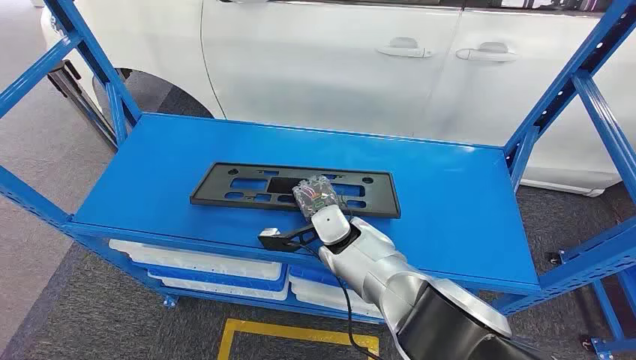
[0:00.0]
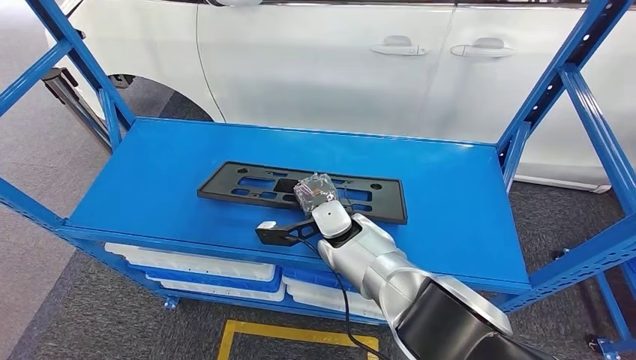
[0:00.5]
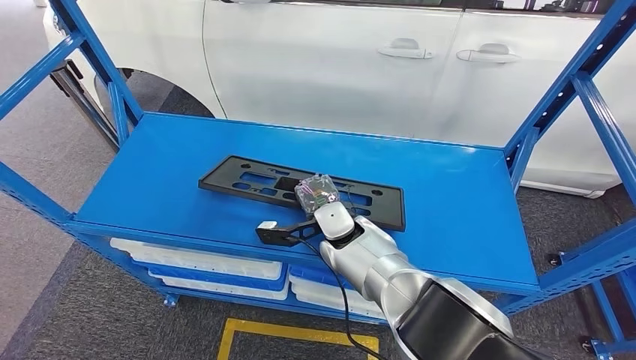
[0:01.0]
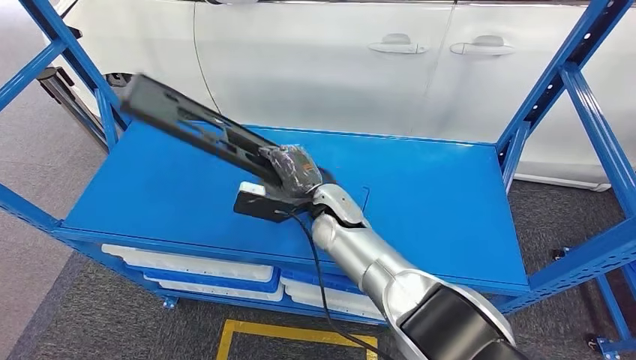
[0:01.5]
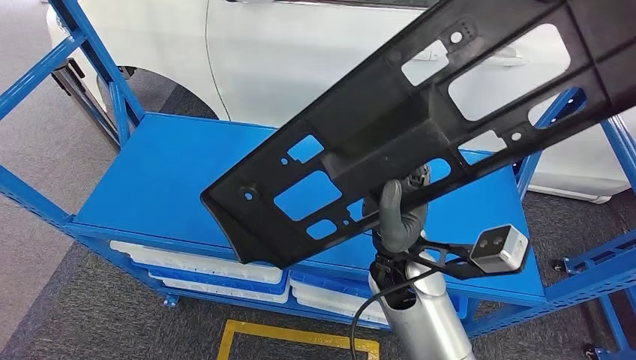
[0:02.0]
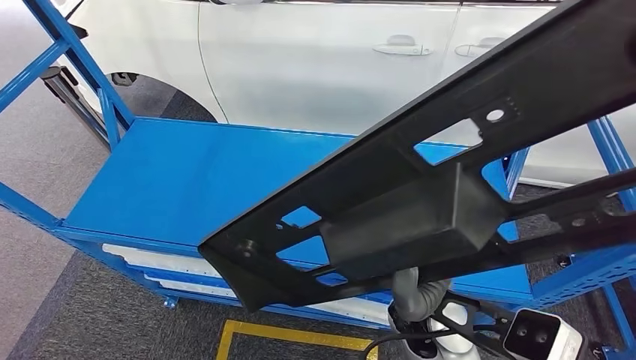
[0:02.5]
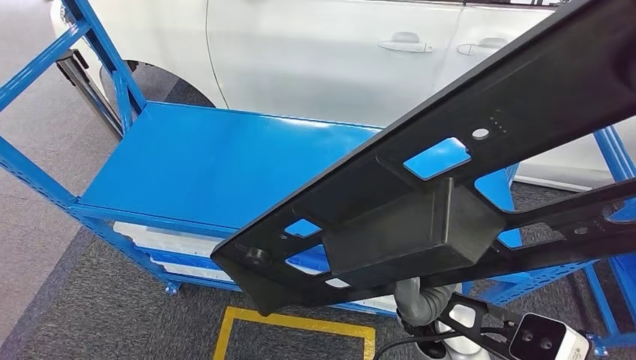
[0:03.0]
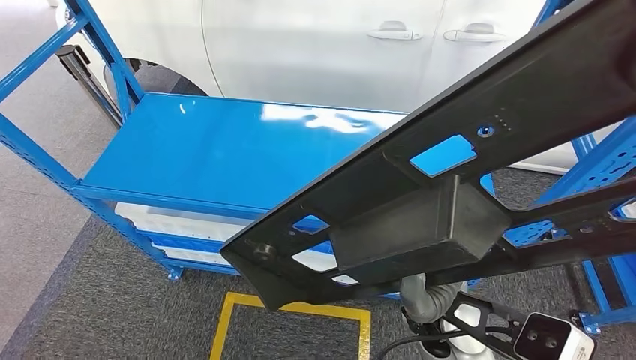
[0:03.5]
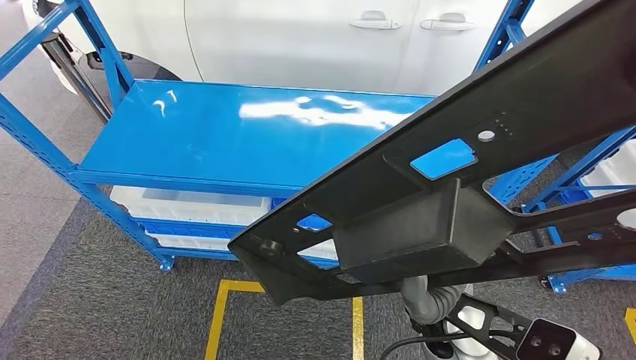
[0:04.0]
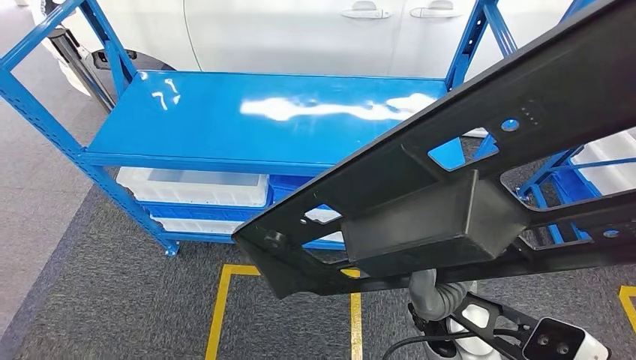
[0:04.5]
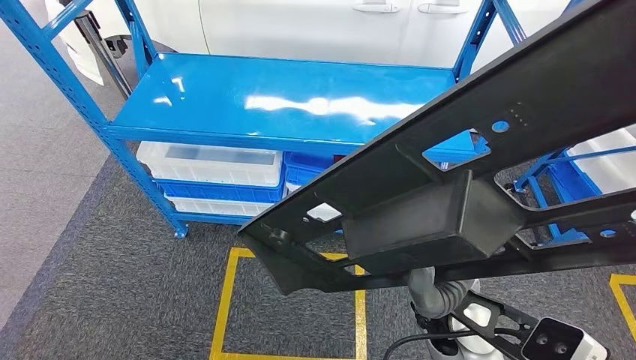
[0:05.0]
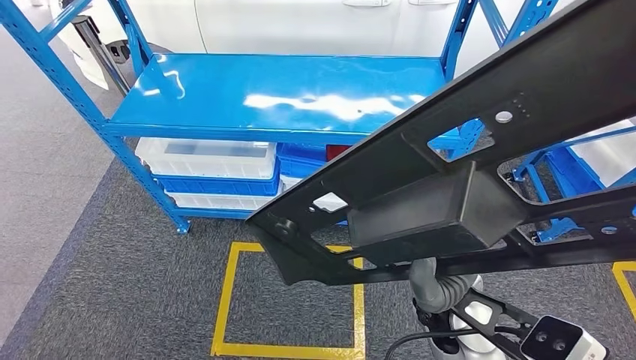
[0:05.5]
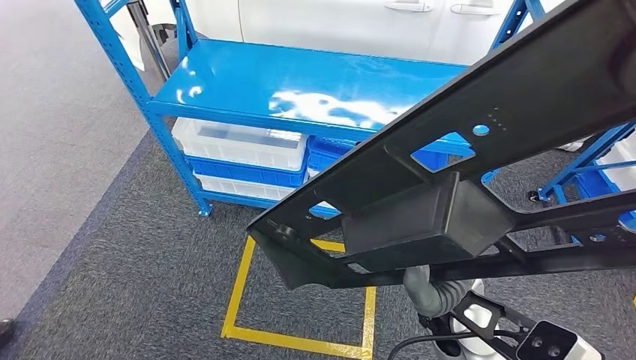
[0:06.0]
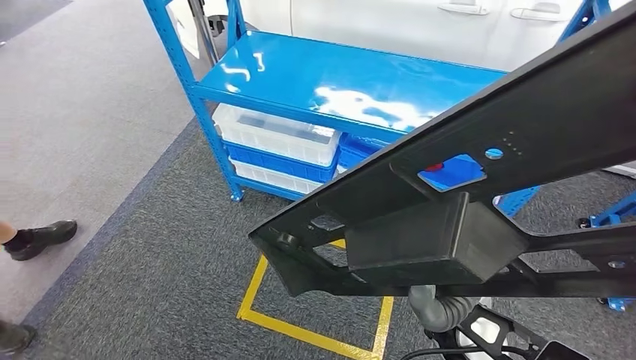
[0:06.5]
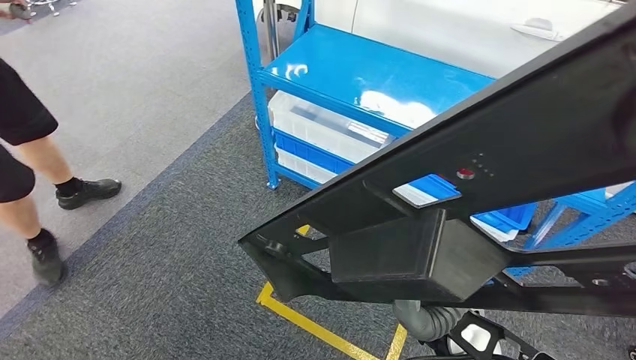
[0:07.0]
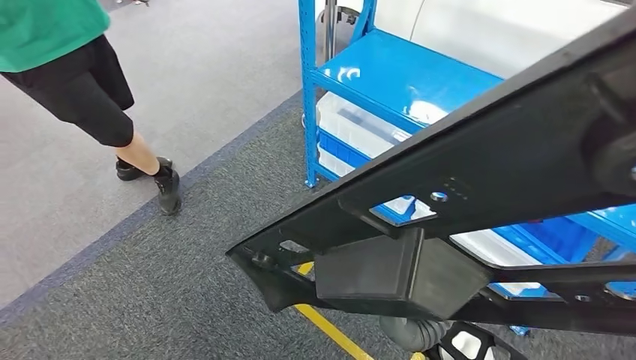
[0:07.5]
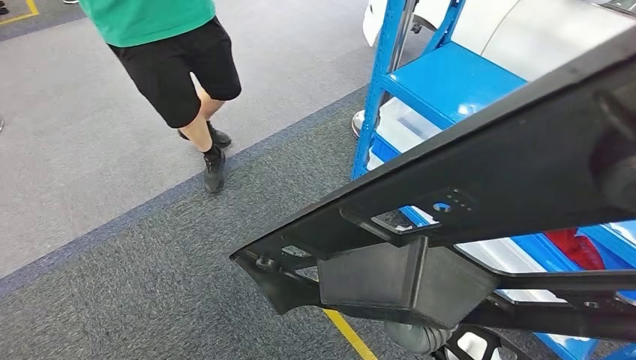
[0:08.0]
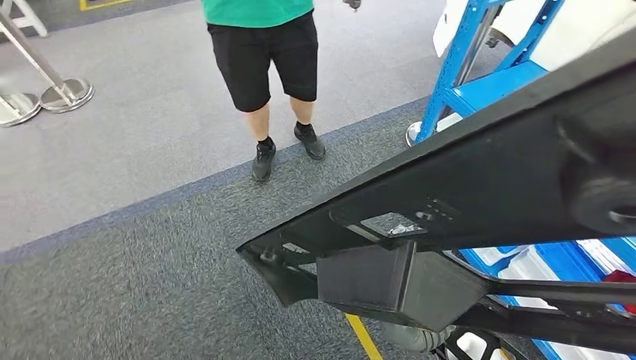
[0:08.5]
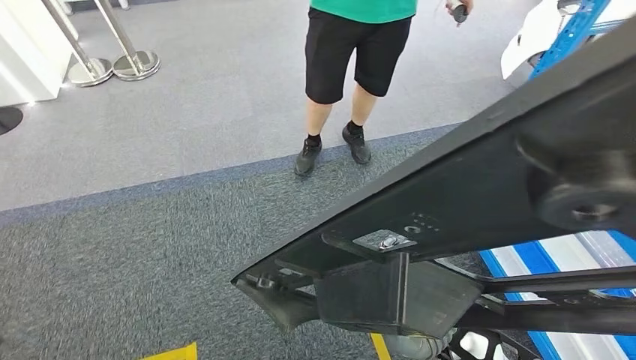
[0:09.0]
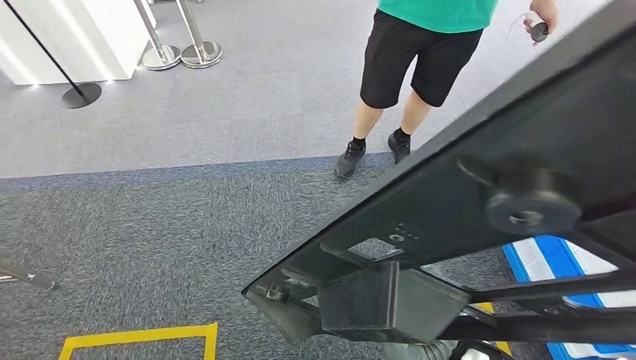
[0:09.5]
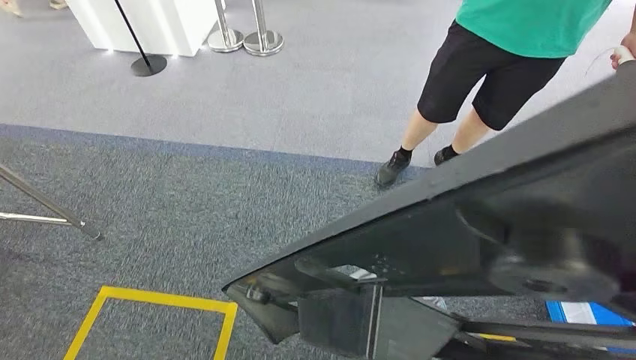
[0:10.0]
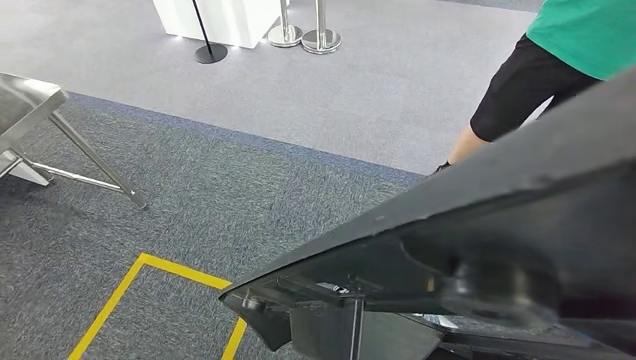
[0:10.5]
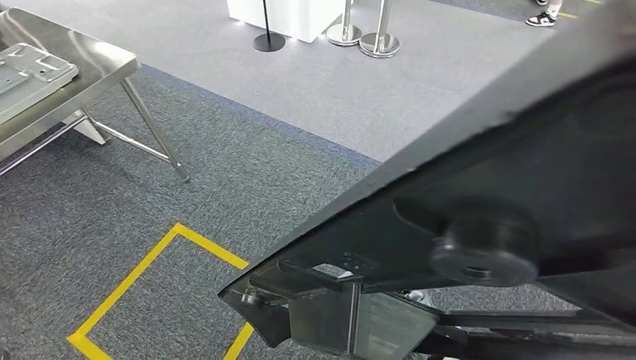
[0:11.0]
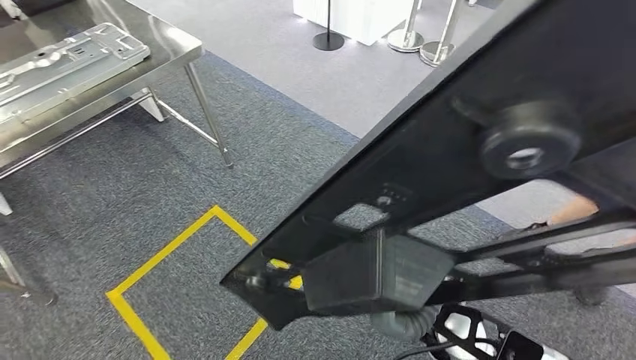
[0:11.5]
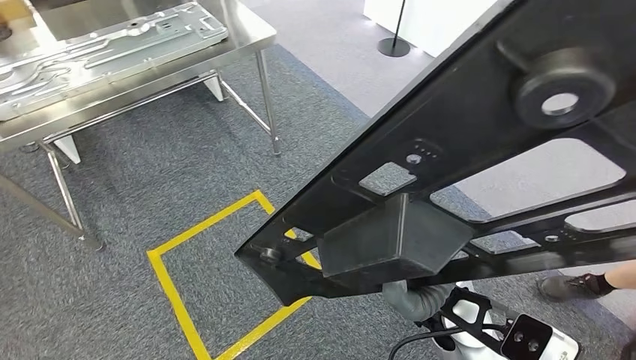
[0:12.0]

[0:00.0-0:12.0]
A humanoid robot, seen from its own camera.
Step, 0:00.0 to 0:02.5: Pick up the large material from the shelf.

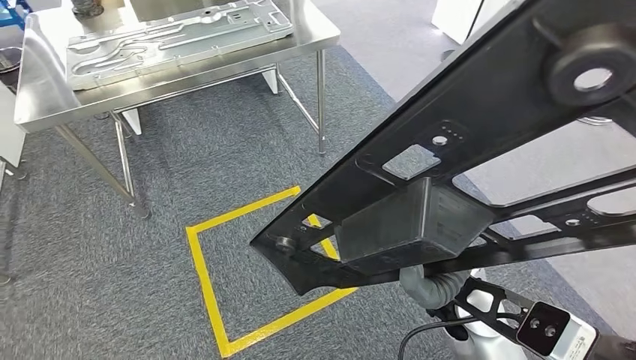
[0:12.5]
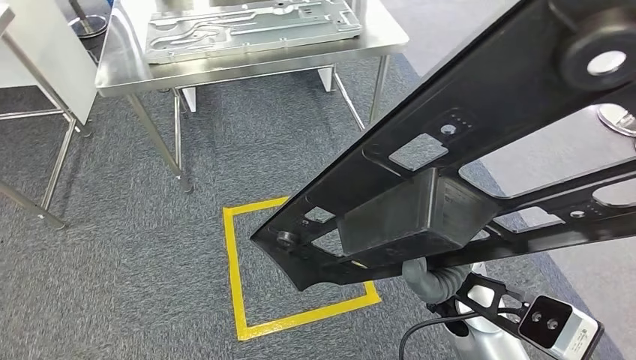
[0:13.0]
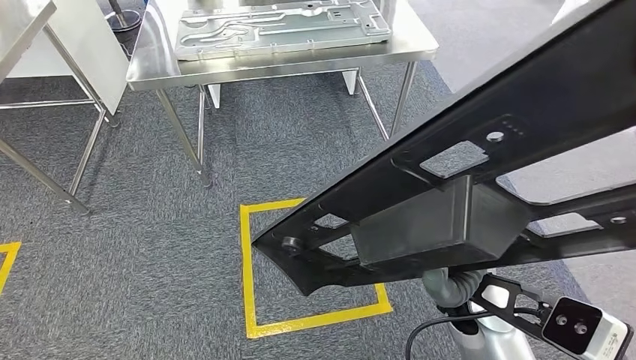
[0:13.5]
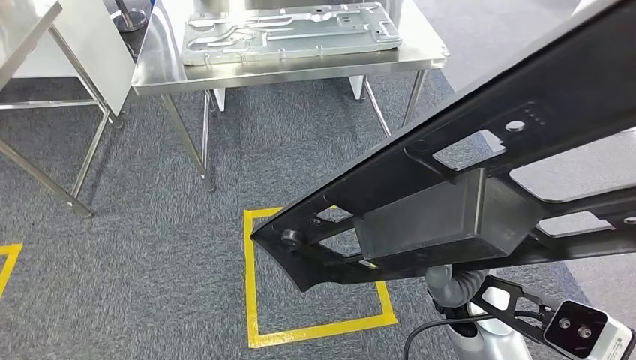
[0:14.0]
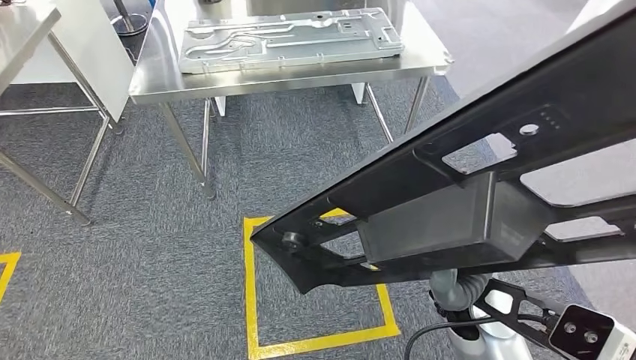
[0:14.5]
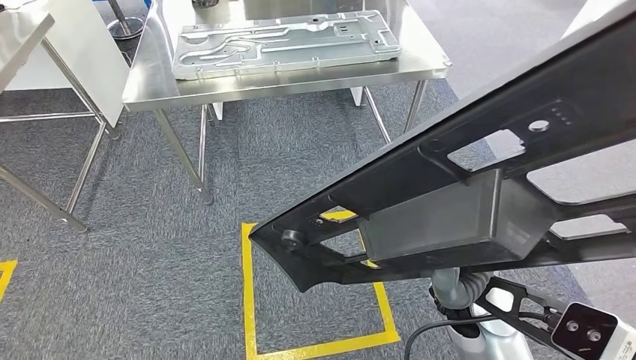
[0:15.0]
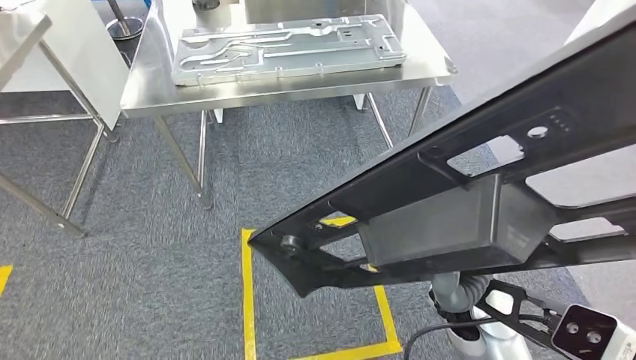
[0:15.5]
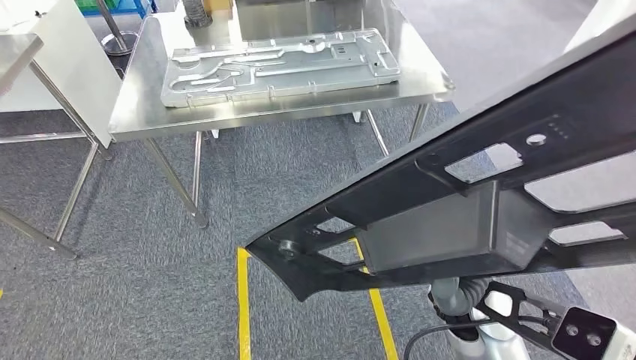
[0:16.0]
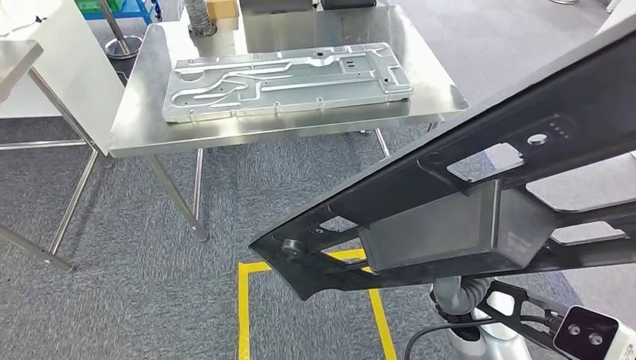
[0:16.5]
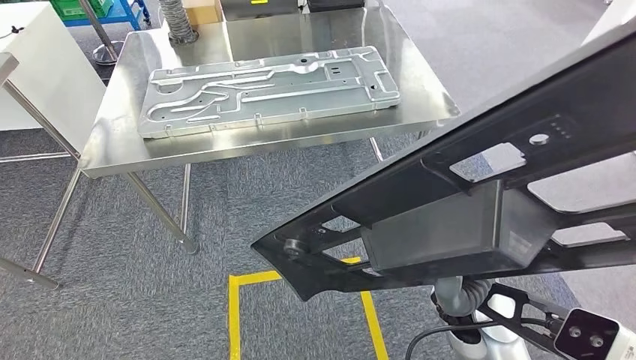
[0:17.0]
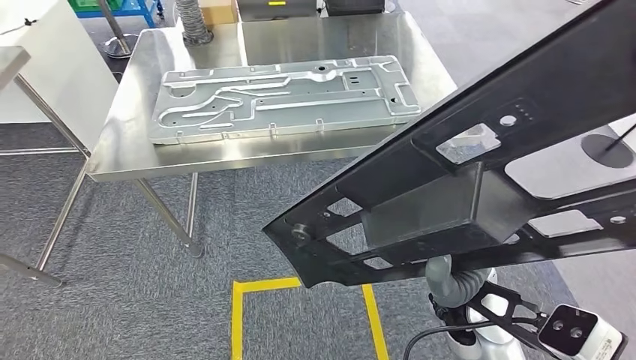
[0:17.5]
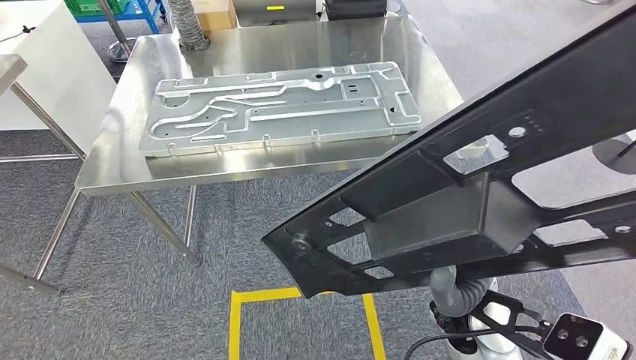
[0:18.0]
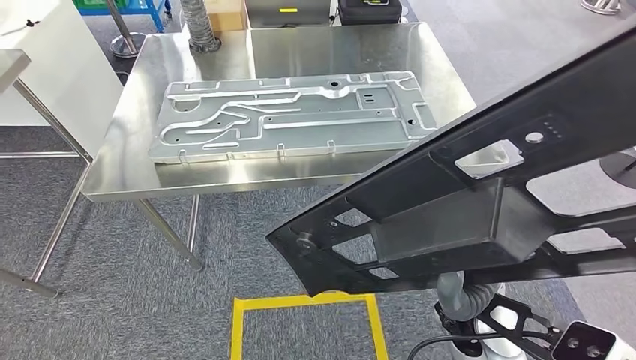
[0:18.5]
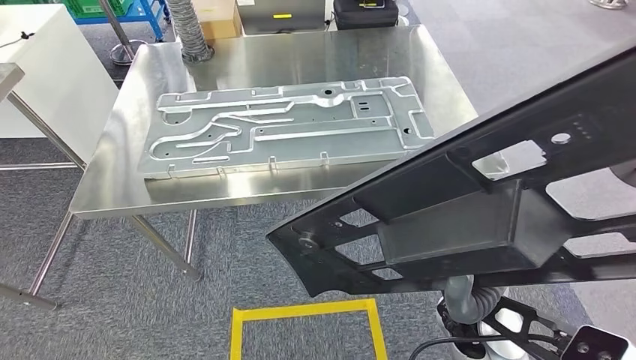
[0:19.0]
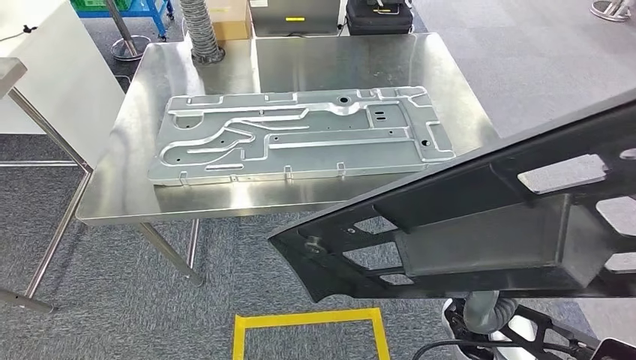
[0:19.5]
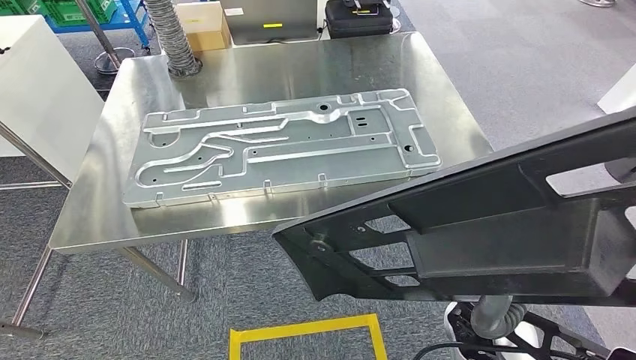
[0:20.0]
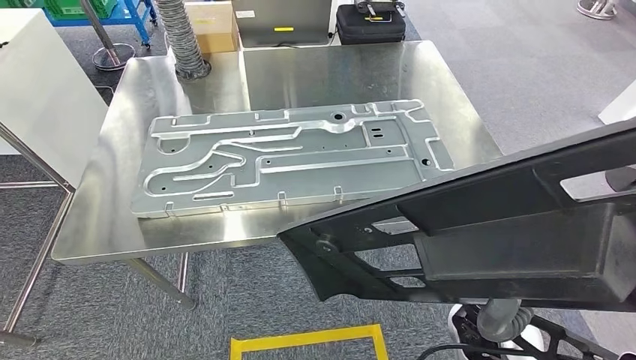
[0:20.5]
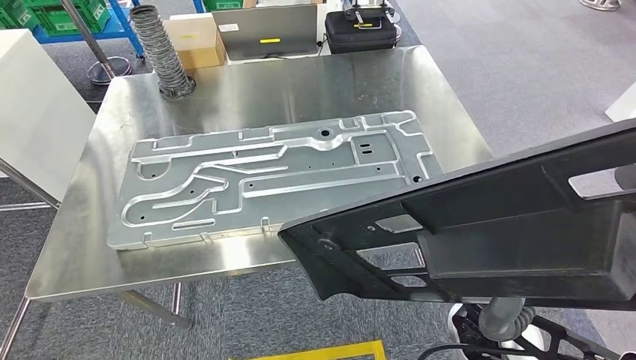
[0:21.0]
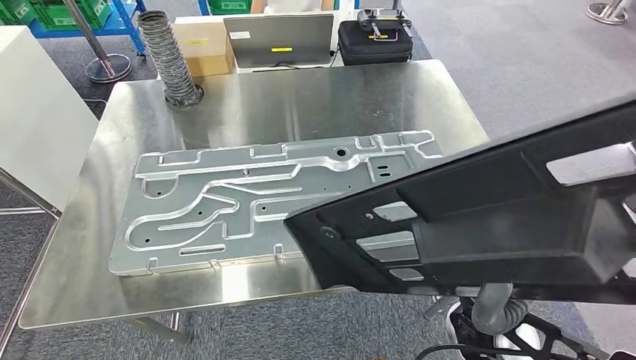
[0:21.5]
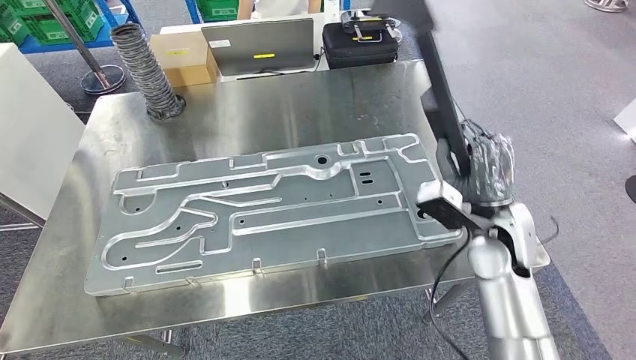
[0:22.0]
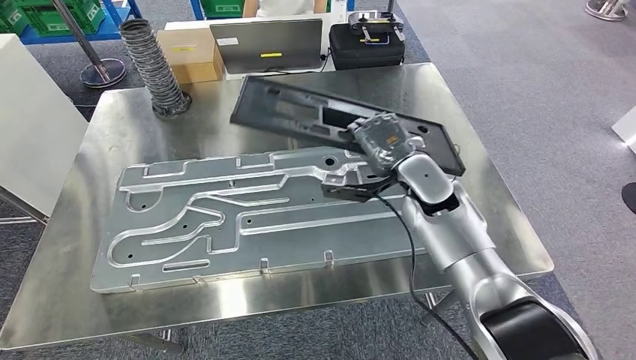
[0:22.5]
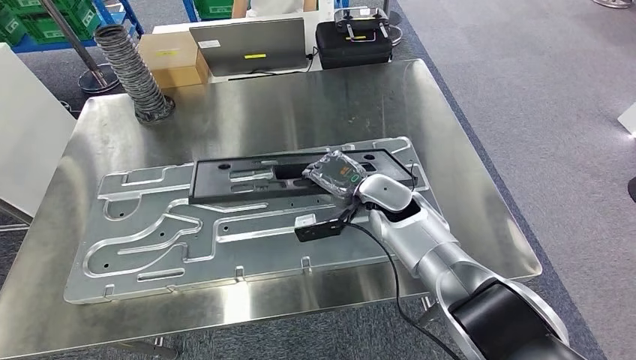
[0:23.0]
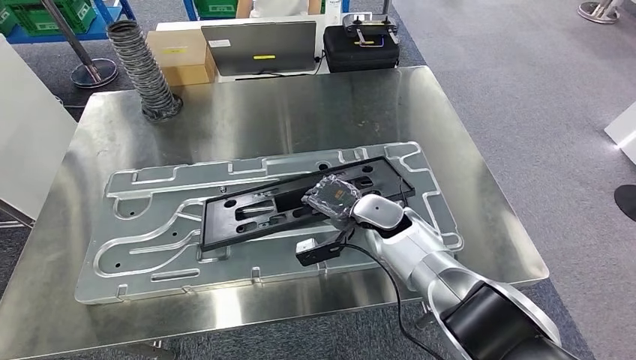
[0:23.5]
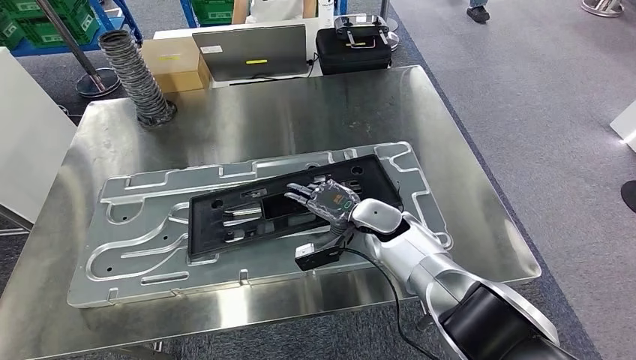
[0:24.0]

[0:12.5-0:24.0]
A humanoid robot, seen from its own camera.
Step, 0:12.5 to 0:18.5: Move the large material to the workbench.
